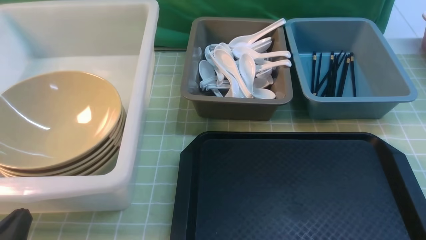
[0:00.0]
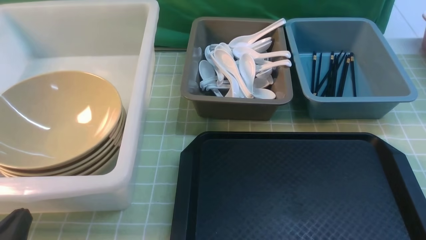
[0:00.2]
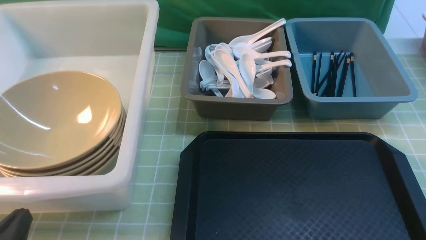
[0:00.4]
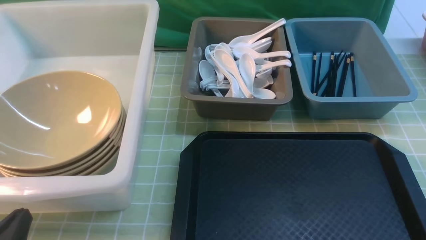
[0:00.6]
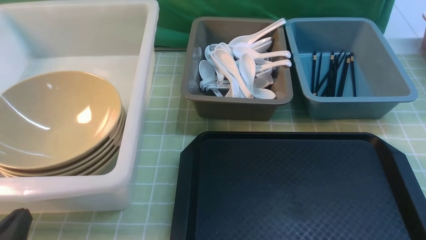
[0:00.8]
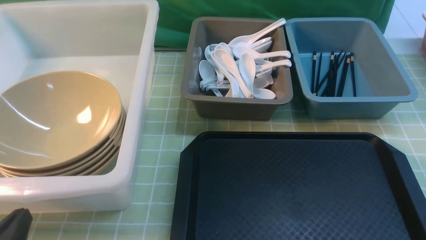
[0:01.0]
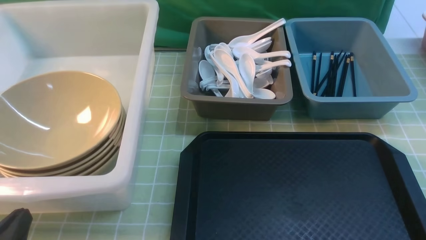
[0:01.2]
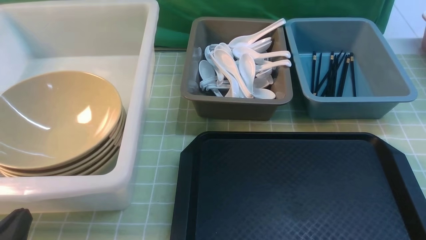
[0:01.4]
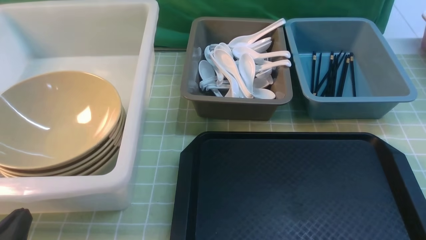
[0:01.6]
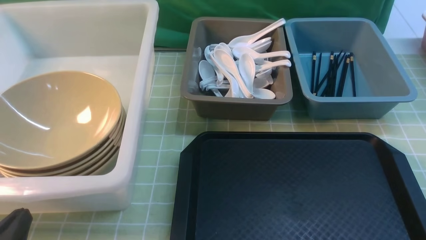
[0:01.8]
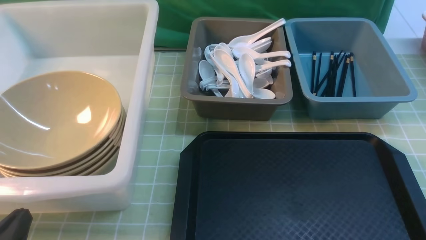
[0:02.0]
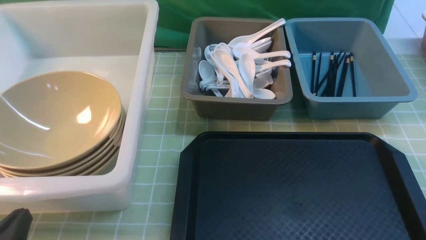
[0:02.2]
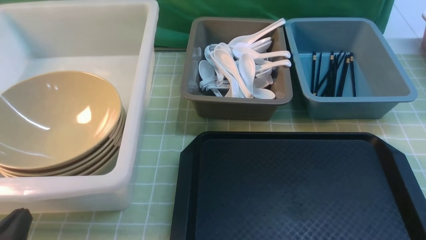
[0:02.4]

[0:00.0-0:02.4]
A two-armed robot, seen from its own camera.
Task of the whole recording: on green table put chopsticks spoon bowls plates into blue grey white boxes.
0:00.0 to 0:02.4: Both grippers stay about where they are.
